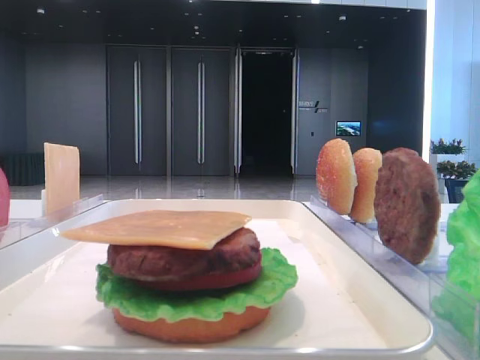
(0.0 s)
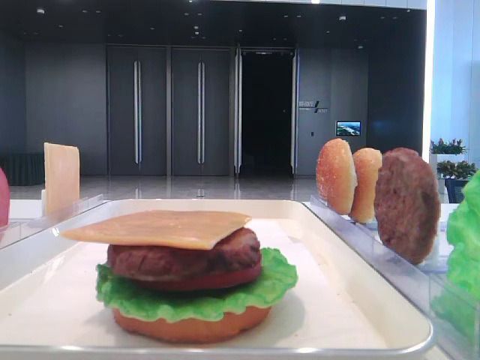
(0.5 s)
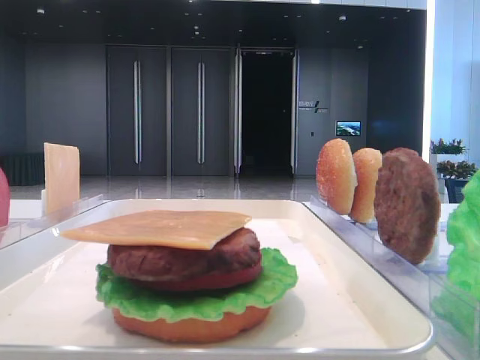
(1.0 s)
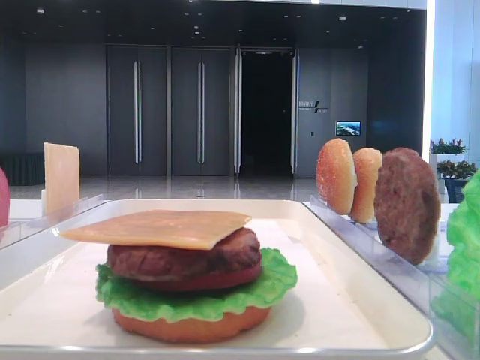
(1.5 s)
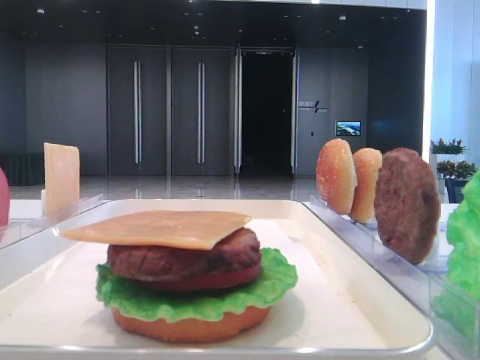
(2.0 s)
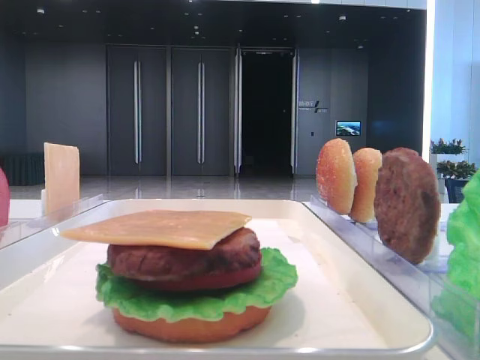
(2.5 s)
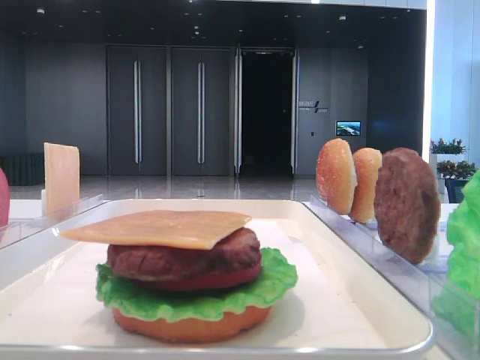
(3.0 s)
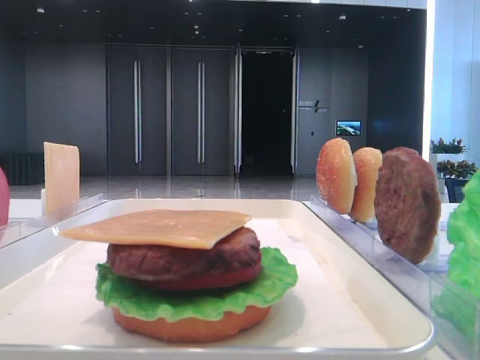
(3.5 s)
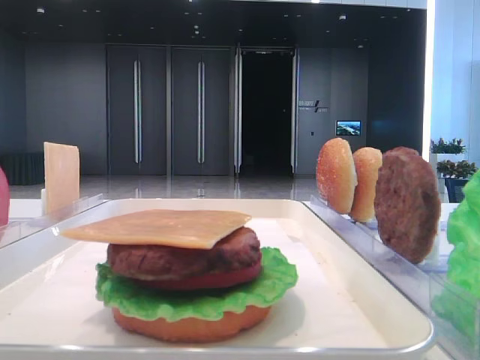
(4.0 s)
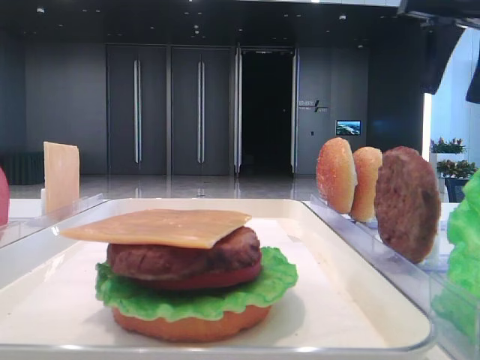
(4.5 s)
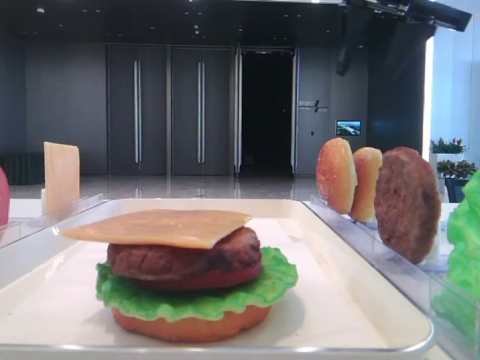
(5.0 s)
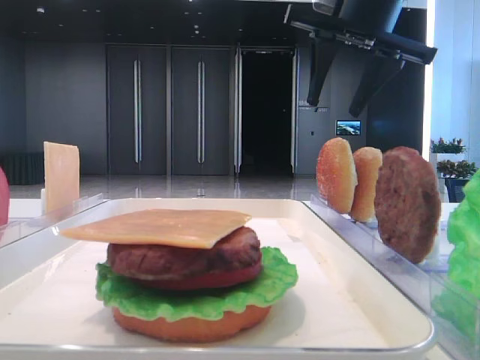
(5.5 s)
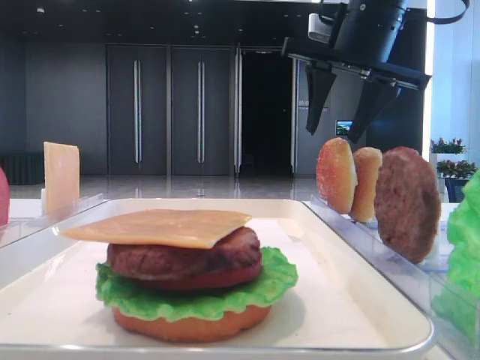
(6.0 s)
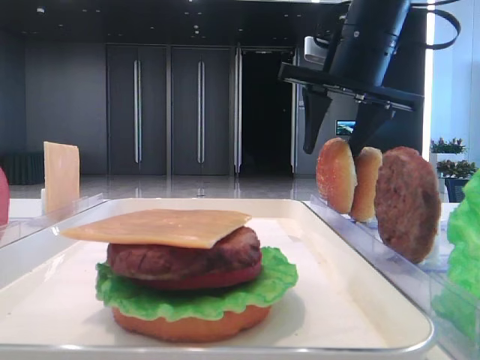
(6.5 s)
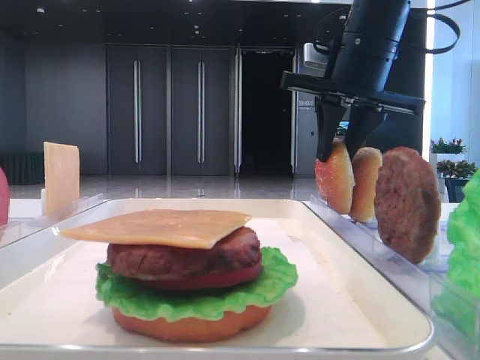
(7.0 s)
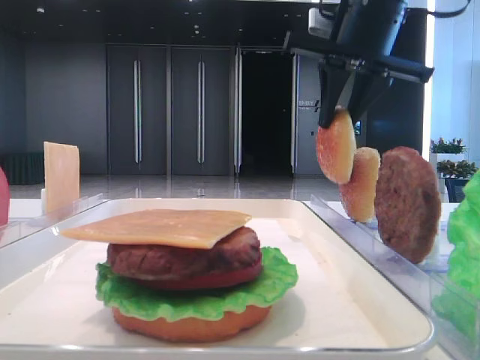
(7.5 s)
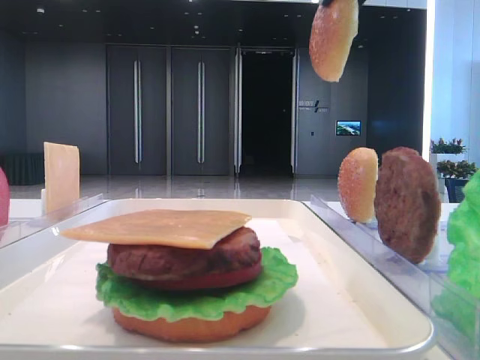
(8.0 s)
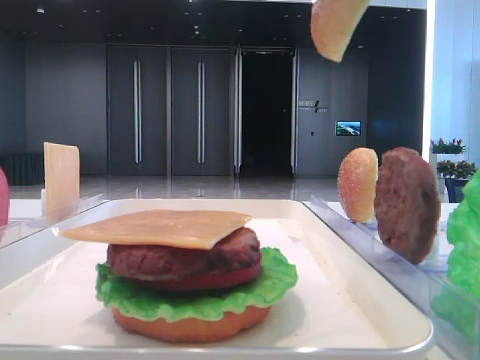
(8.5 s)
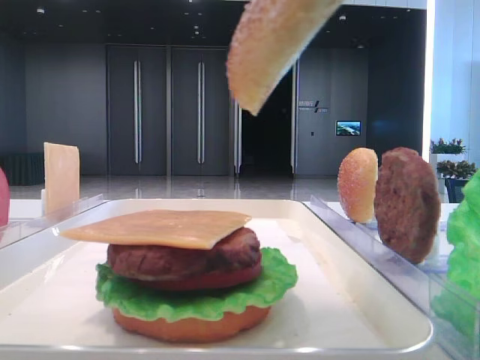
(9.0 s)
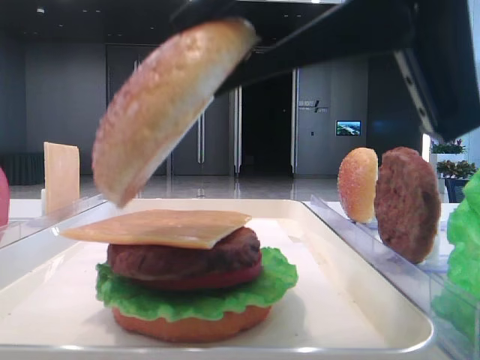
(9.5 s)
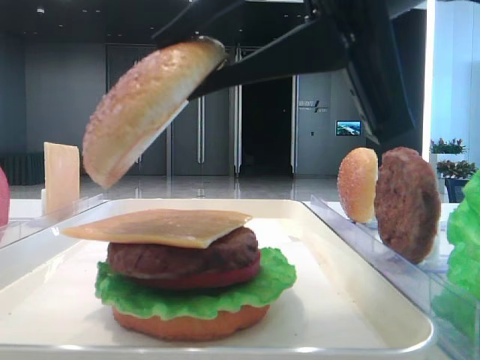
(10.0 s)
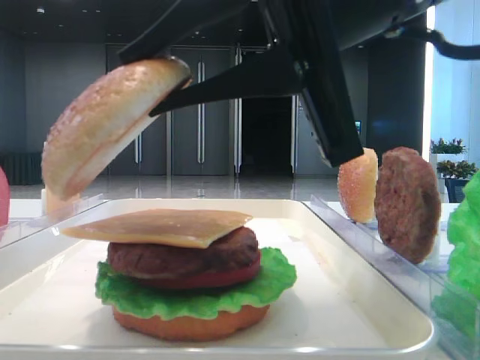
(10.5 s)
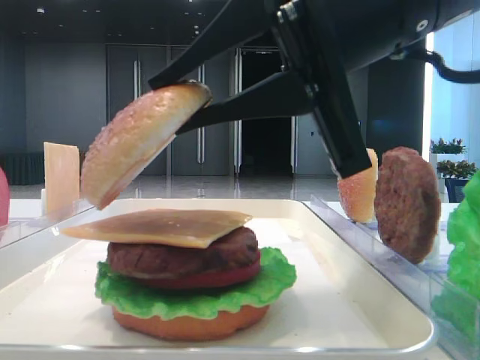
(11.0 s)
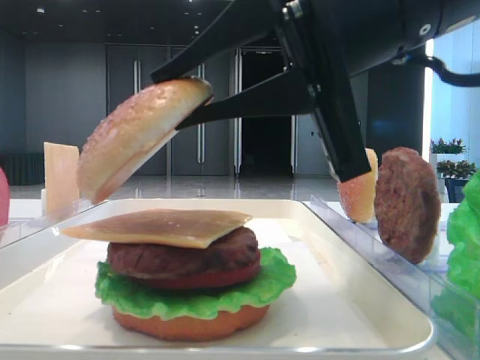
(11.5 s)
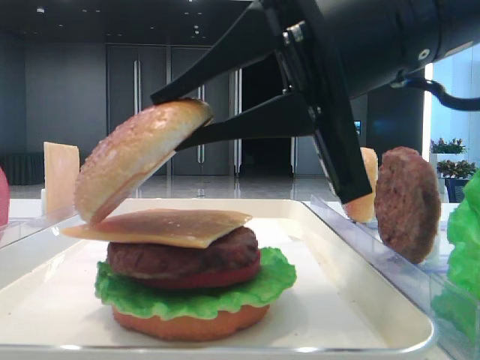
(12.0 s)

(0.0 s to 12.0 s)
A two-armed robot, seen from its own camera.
Step, 0.0 s - 7.0 s: Pick up the top bread slice with the right hand.
4.0 s - 6.0 s: The right gripper shifts approximately 15 cm to the left, forward and downward.
6.0 s - 8.0 s: The right gripper heads upward and backward, covering some 15 cm, and closes.
8.0 s - 10.0 s: The right gripper is displaced downward and backward by about 20 cm.
10.0 s - 12.0 s: The right gripper moves roughly 5 cm.

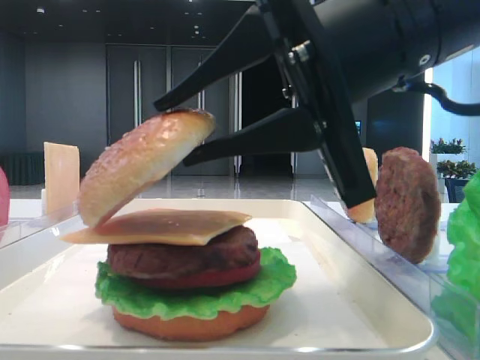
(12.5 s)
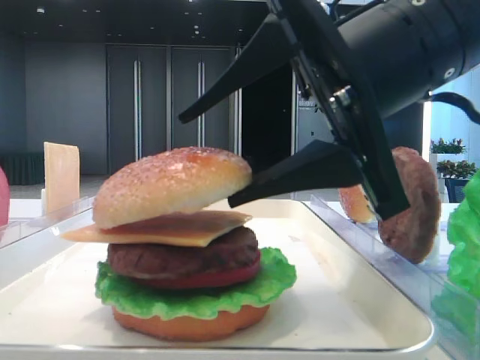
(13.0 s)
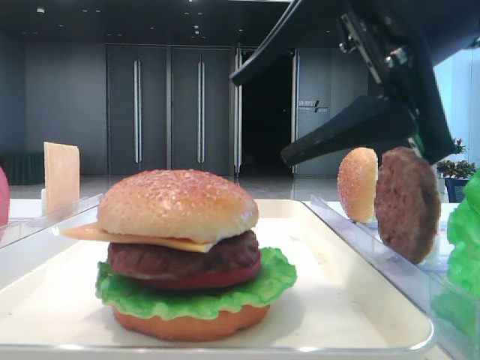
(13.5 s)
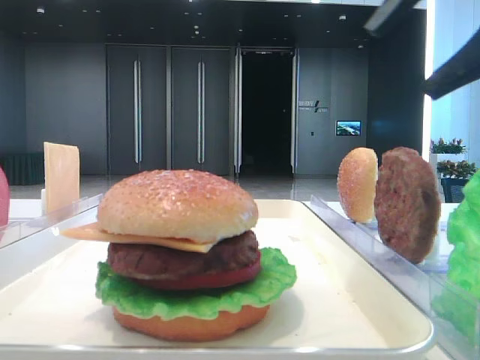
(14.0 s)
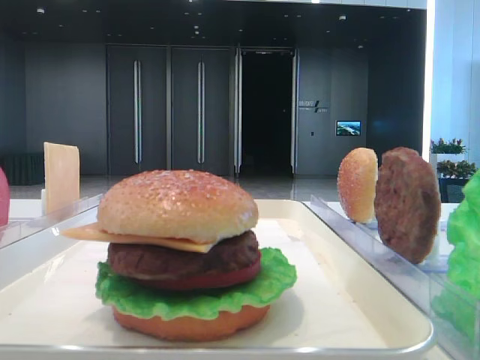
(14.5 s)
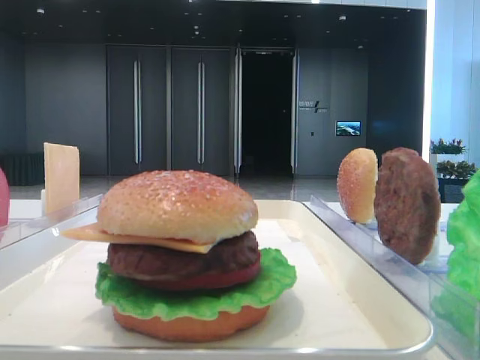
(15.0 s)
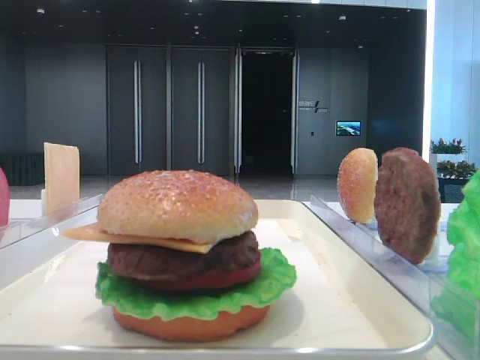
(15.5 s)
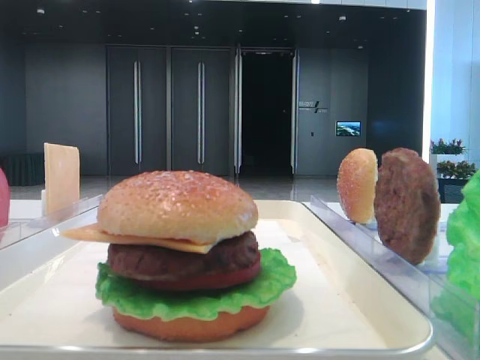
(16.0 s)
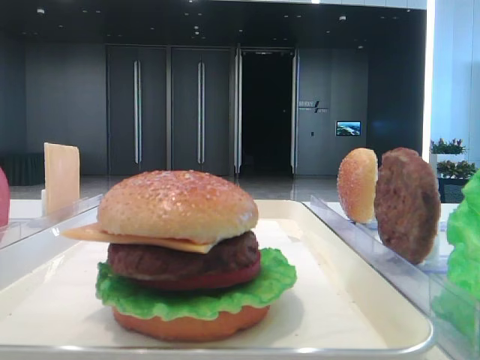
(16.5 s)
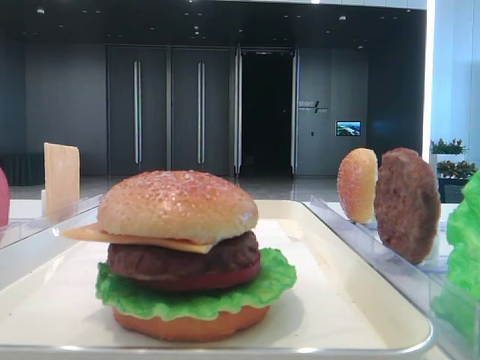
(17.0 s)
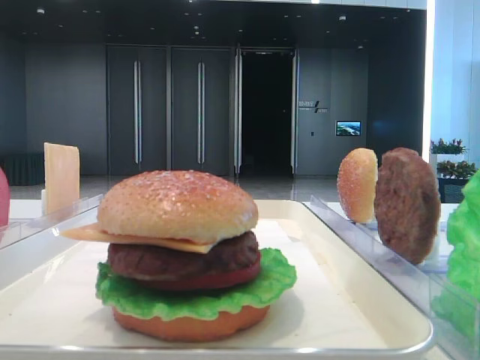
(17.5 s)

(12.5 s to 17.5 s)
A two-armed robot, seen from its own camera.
12.5 s - 15.0 s: The right gripper travels to the right, upward and backward by roughly 25 cm, and opens up.

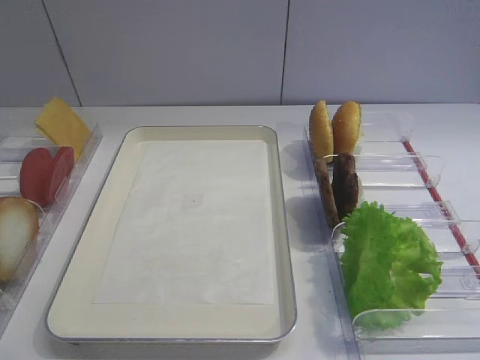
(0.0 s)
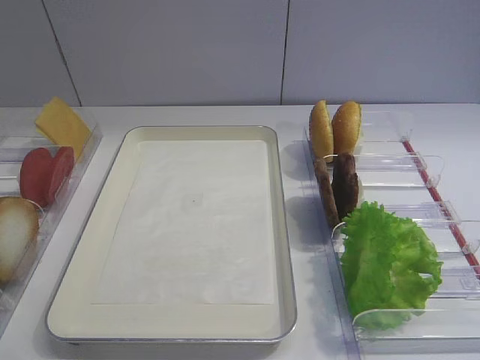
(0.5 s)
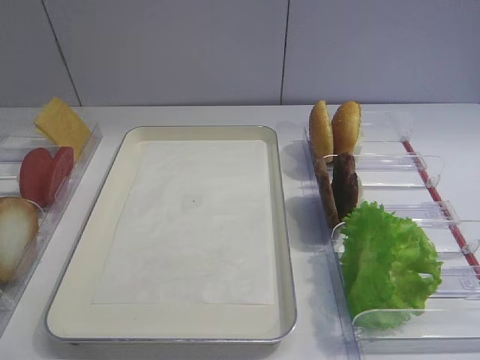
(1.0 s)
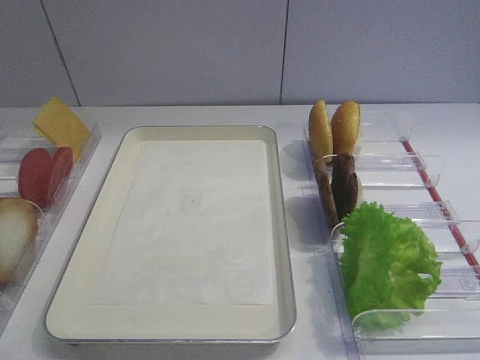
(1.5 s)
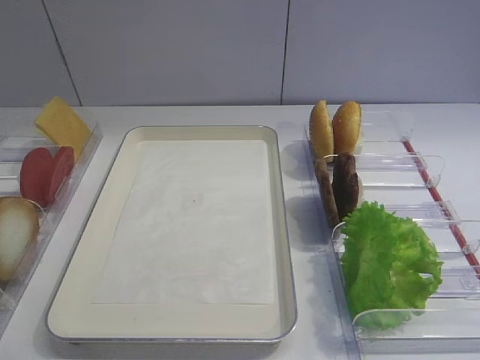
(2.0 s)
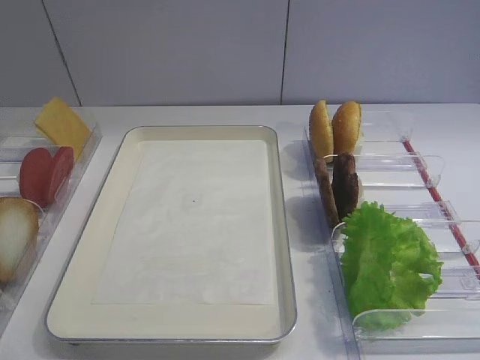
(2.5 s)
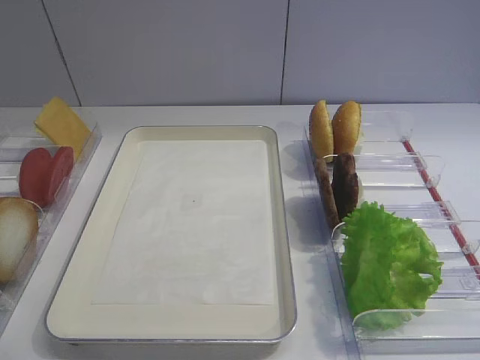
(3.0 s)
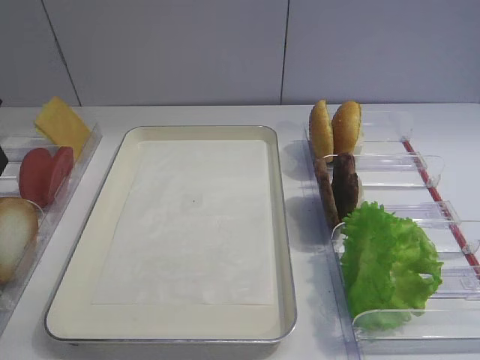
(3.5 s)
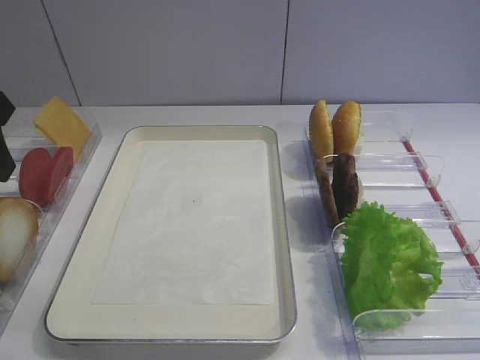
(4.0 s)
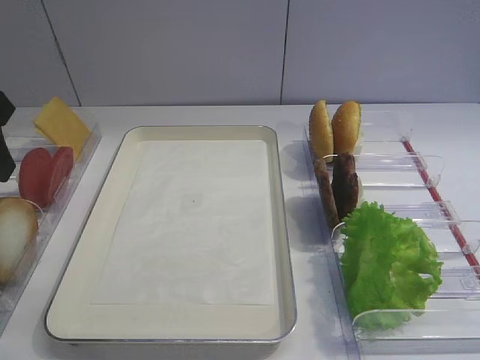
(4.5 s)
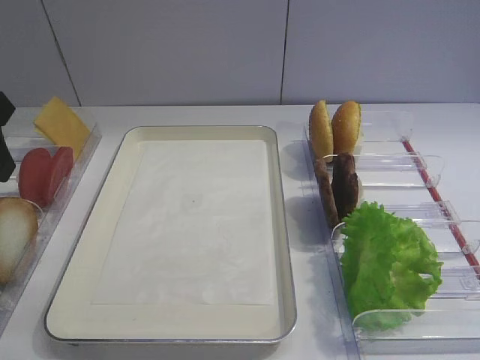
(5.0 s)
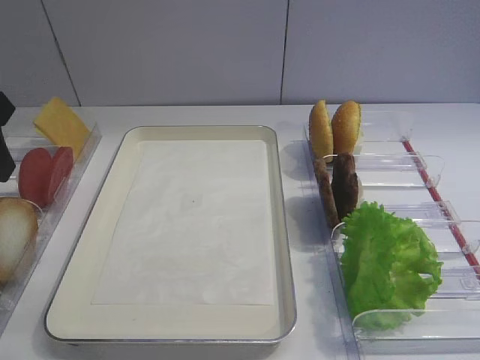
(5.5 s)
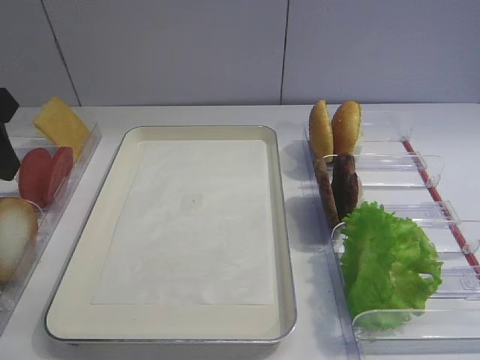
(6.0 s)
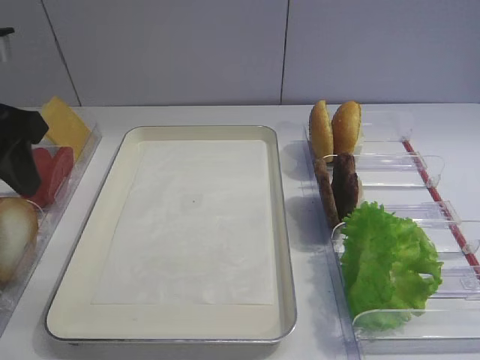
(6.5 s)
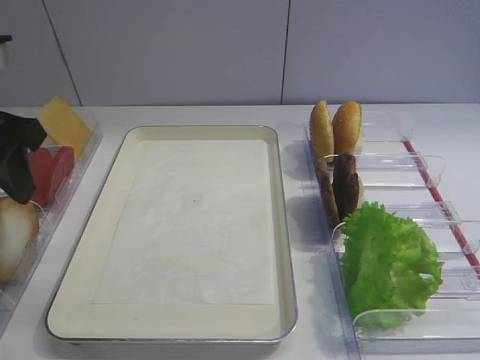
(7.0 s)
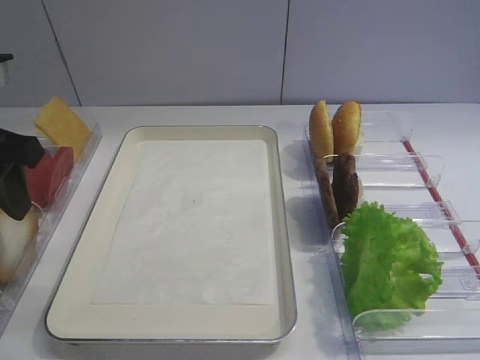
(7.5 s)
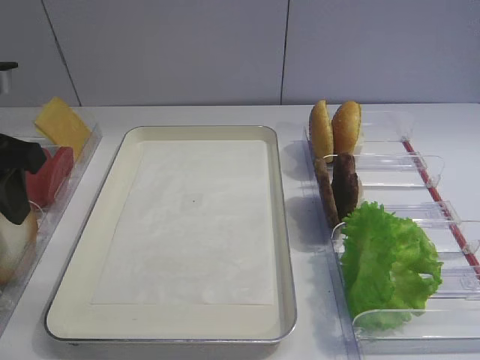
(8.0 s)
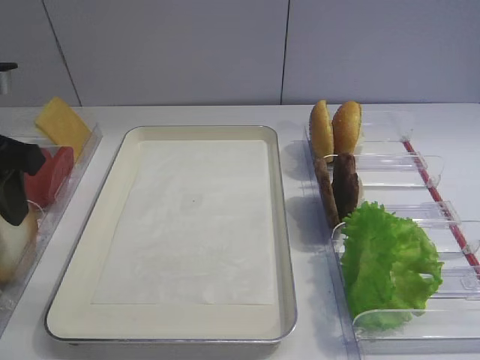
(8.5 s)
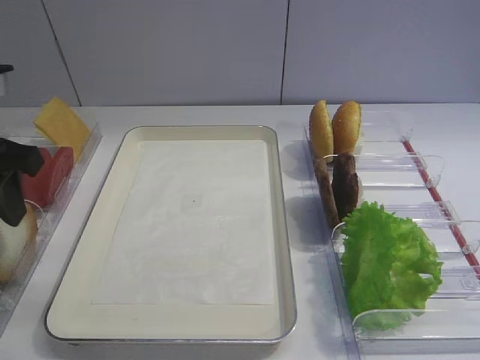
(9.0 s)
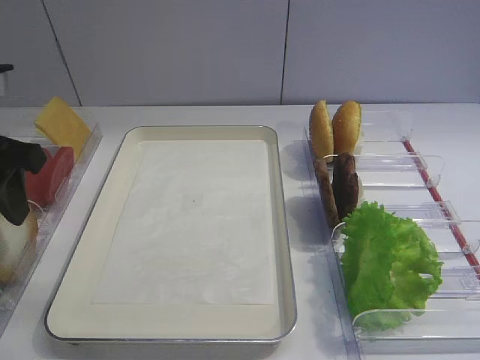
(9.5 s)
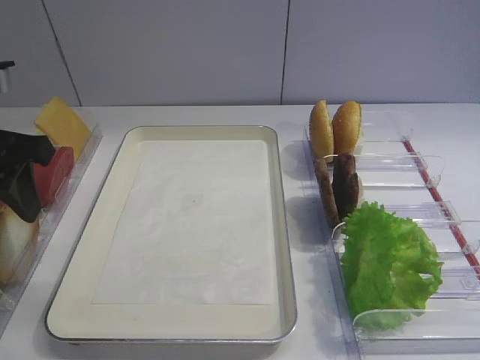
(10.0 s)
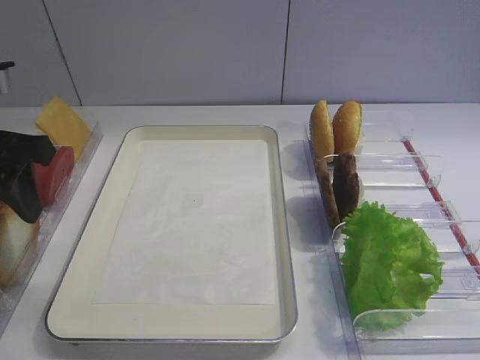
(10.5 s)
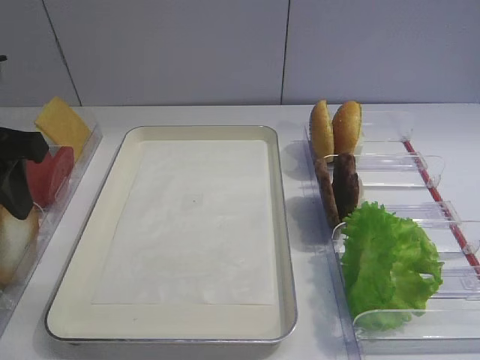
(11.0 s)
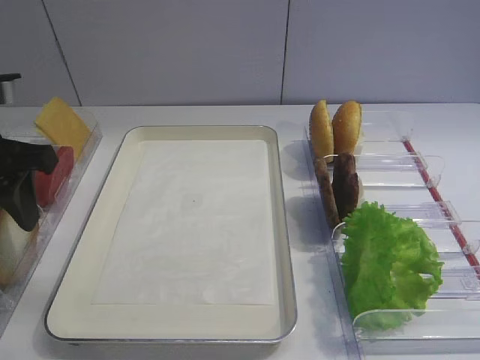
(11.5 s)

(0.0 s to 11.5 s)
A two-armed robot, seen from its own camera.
2.0 s - 4.0 s: The left gripper shifts about 25 cm forward.
4.0 s - 6.0 s: Both grippers stay about where they are.
6.0 s - 7.5 s: The grippers move only a little.
7.5 s - 9.5 s: The two grippers keep their place.
